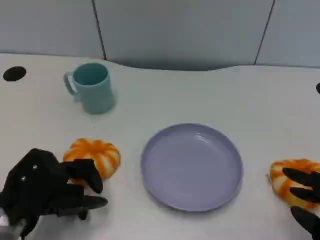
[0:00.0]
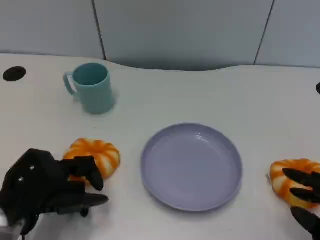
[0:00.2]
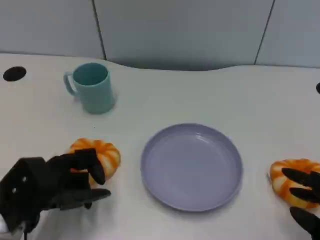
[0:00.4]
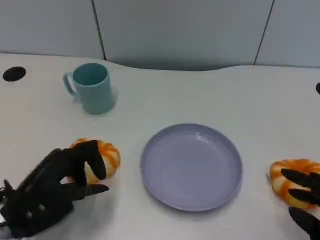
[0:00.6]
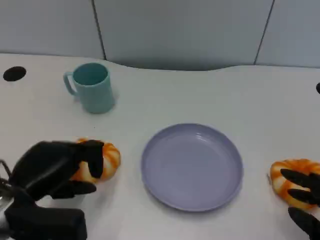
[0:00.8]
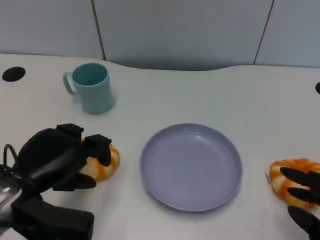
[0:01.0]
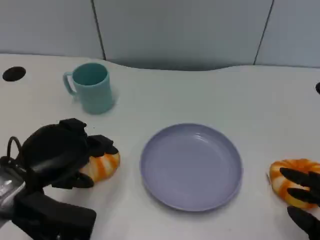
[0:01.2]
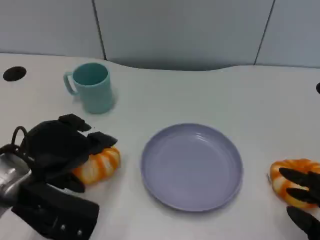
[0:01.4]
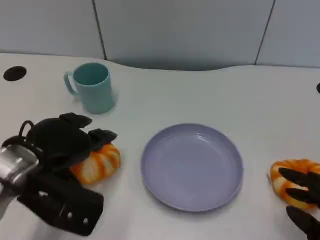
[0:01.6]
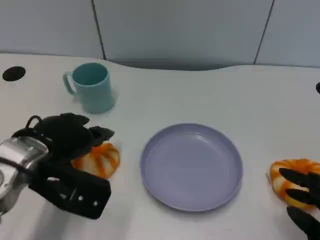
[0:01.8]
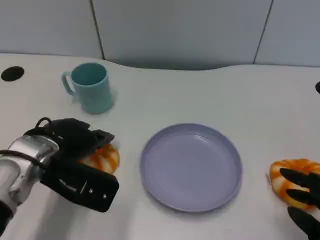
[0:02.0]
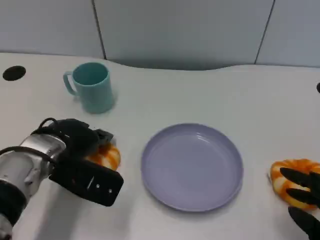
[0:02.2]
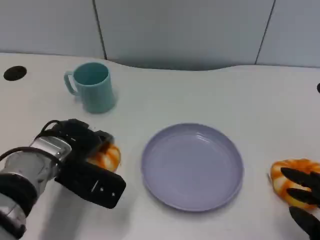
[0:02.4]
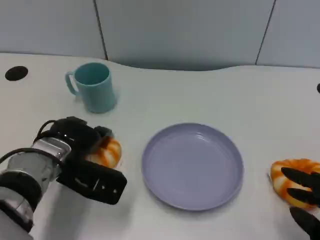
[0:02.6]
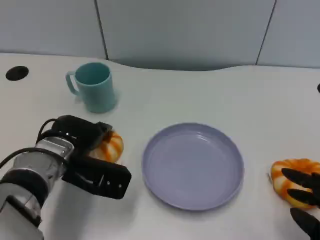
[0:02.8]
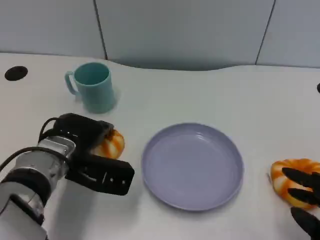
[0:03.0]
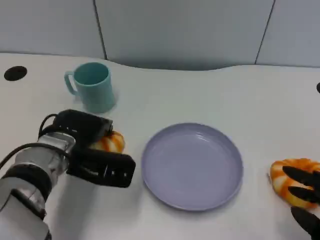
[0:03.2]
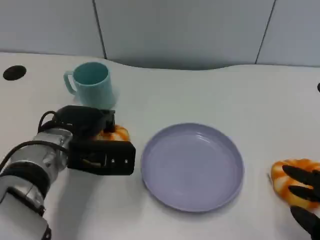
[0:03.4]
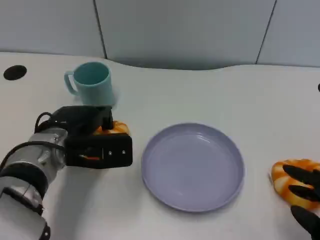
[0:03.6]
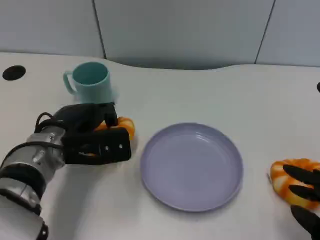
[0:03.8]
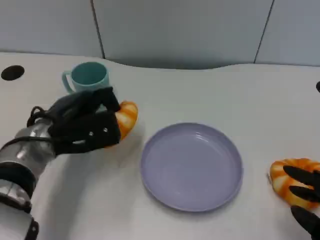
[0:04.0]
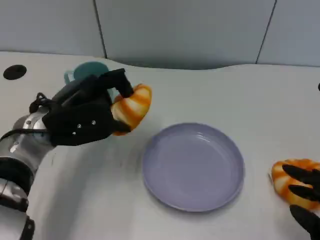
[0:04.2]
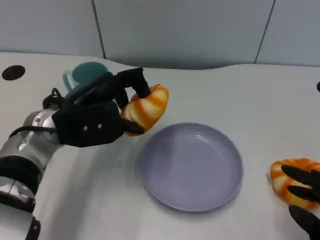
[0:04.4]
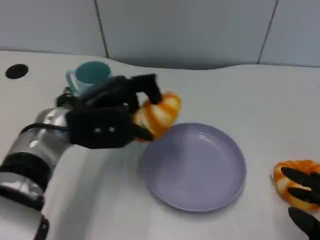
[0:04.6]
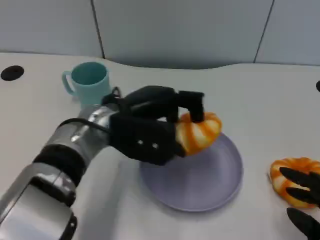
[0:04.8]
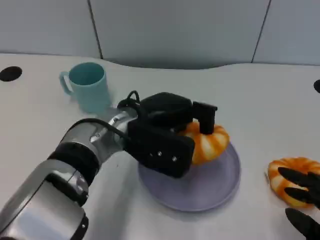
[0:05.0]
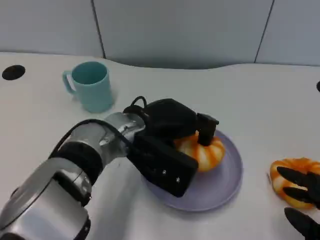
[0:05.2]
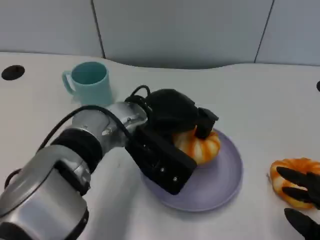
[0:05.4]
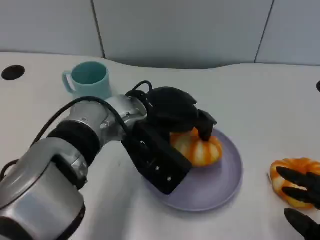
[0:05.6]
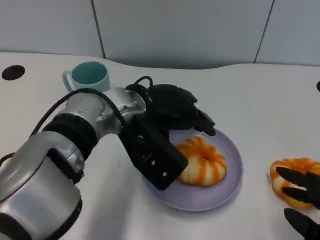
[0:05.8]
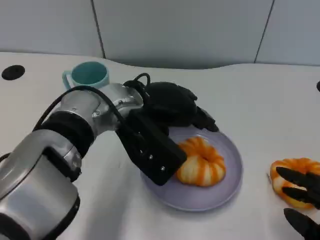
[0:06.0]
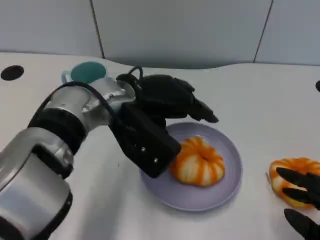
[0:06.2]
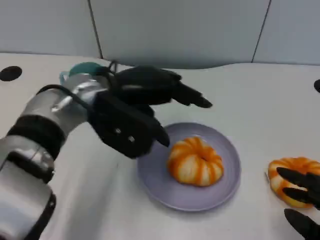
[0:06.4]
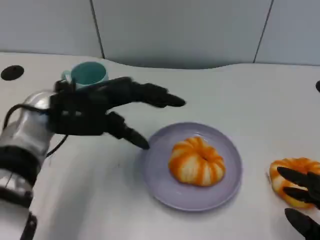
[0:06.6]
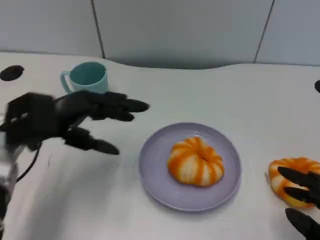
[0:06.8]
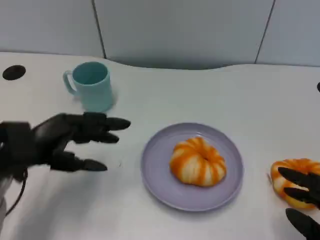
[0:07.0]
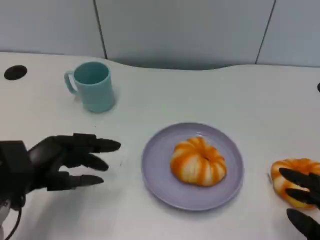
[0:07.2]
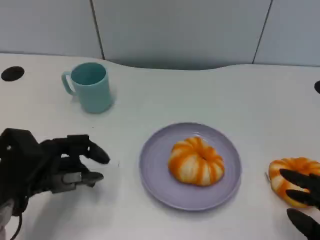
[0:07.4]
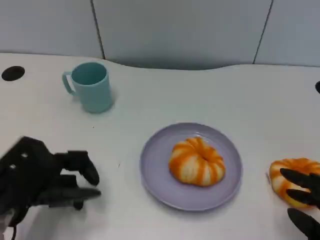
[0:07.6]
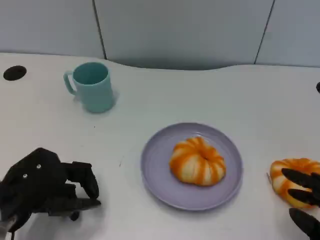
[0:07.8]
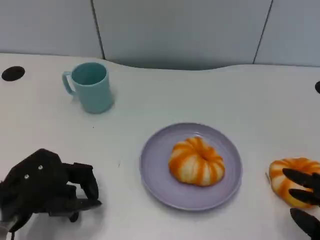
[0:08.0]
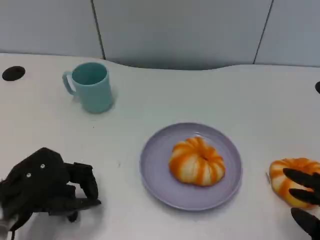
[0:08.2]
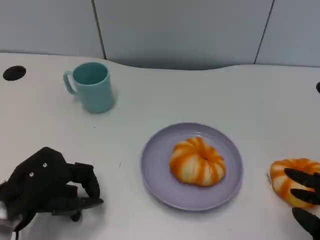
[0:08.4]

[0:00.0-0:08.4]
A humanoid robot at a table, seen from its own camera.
Task of the whole recording: Grasp the bread from the table and place it into the plate.
0:00.0 to 0:01.4: The left hand heads upward, covering about 5 cm.
0:01.4 to 0:02.8: The left hand is displaced forward and downward by about 10 cm.
0:02.8 to 0:04.2: The left hand shifts roughly 5 cm upward.
0:04.2 to 0:05.6: The left hand is displaced to the right by about 10 cm.
0:05.6 to 0:07.0: The left hand travels to the left by some 20 cm.

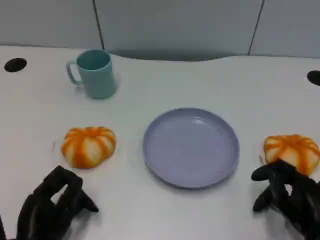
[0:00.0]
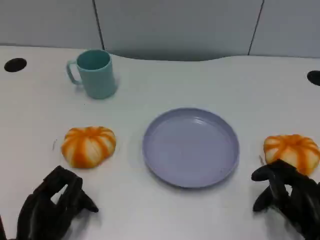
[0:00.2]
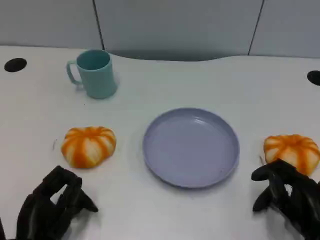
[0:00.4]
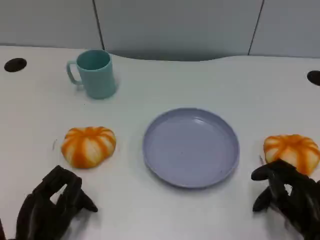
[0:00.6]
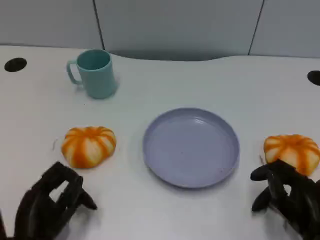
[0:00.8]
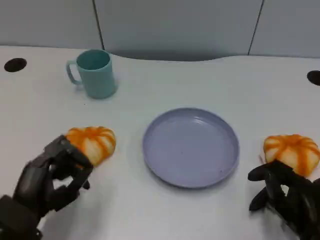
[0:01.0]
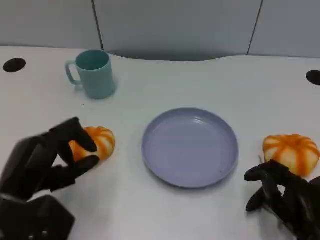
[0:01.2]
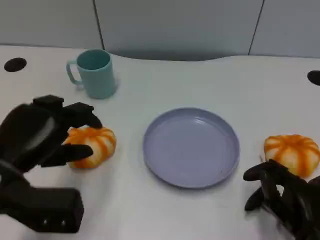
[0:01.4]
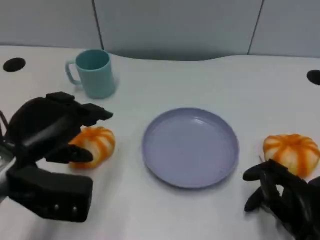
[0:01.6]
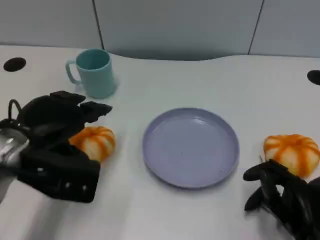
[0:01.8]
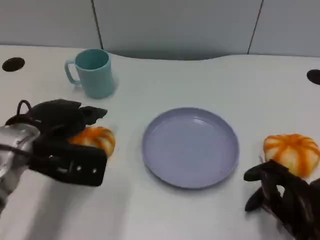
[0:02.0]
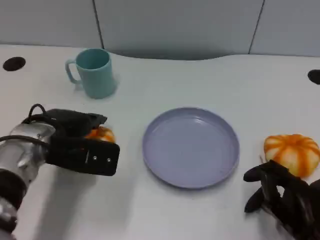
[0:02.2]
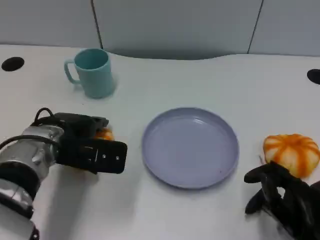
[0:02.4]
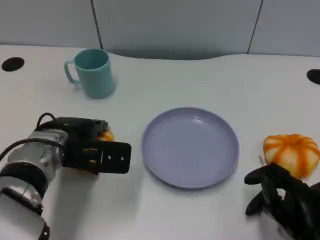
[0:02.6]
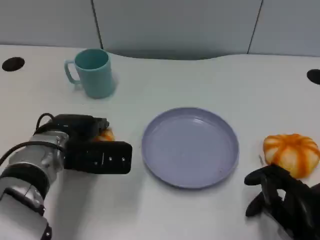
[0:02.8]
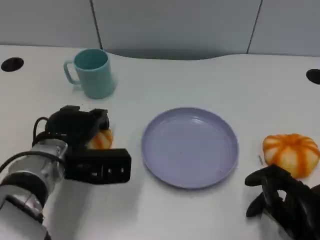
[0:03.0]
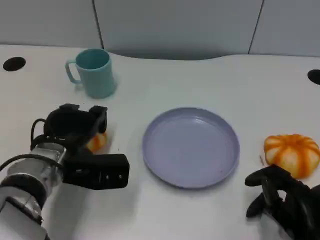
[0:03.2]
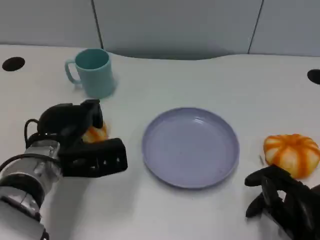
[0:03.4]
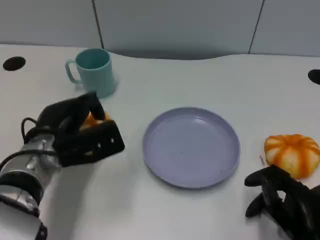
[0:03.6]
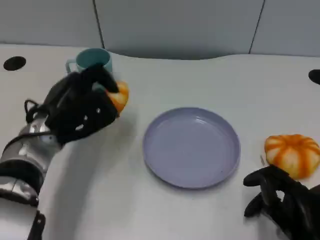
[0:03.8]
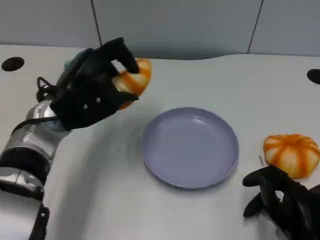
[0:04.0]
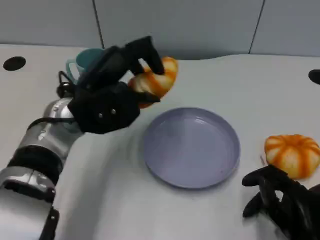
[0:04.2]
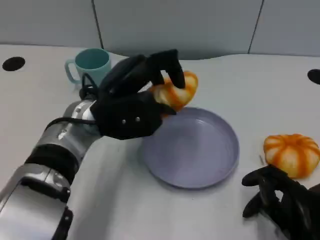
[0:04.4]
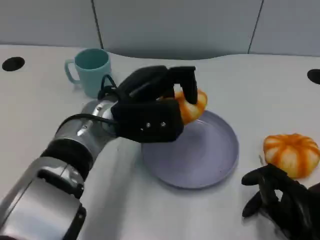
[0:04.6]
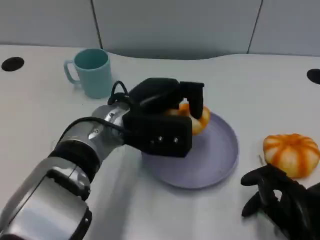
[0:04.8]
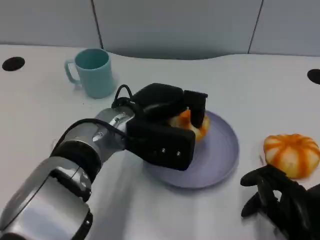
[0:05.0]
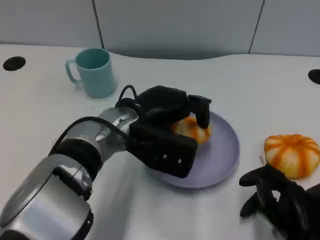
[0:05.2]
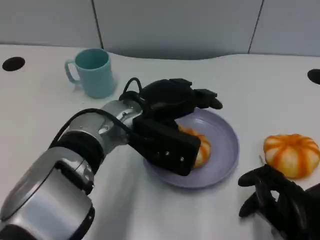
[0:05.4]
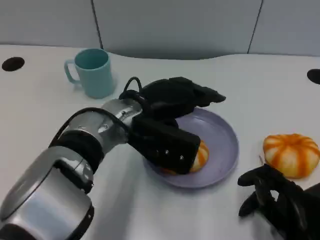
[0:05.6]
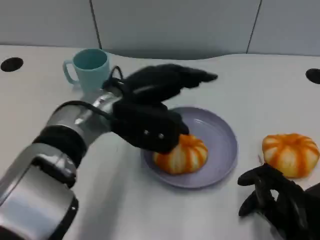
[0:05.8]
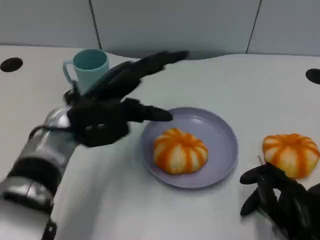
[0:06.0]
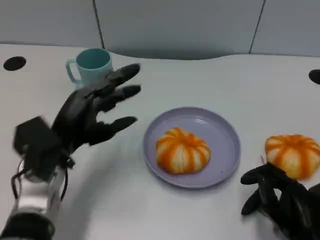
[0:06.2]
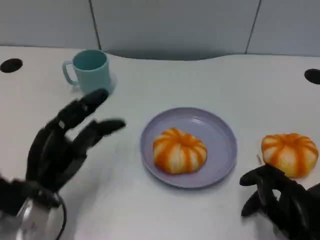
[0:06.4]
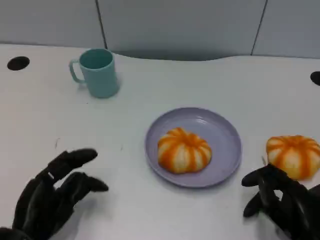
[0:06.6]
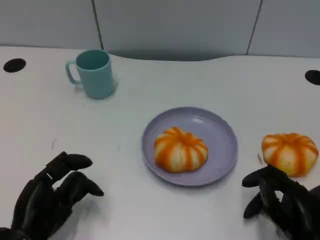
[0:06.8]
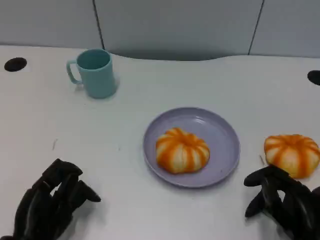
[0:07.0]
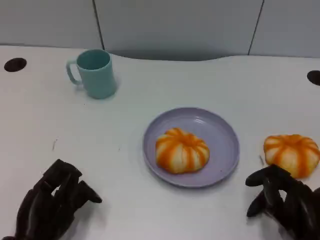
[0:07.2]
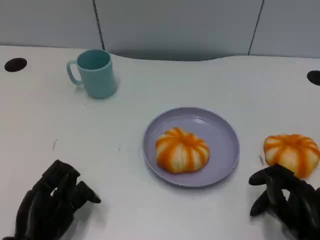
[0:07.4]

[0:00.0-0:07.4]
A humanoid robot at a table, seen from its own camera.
Task of the whole recording: Grasp the bread from the table and place it into the plate.
0:00.0 to 0:01.4: The left hand travels upward and forward by about 15 cm.
0:01.4 to 0:03.0: The left hand moves forward, downward and to the right, roughly 10 cm.
0:03.0 to 0:04.4: The left hand goes approximately 10 cm upward and to the right.
0:04.4 to 0:06.0: The left hand is displaced to the left by some 5 cm.
0:06.0 to 0:07.4: The left hand is displaced backward, downward and to the left by some 20 cm.

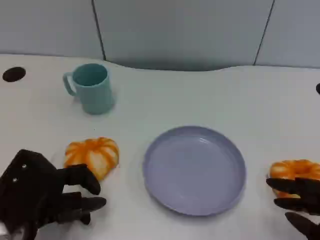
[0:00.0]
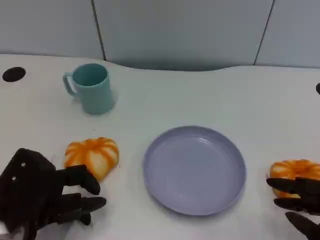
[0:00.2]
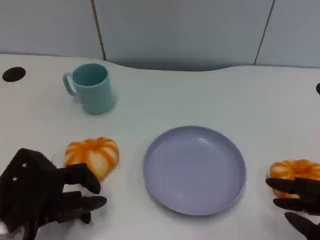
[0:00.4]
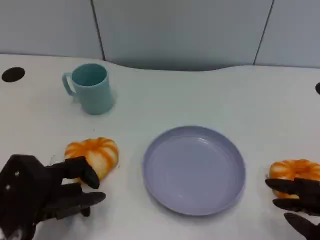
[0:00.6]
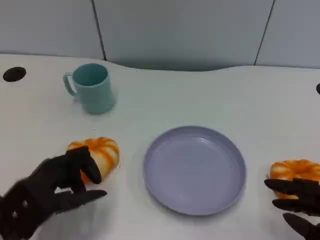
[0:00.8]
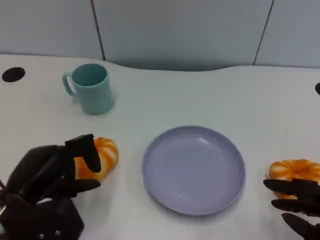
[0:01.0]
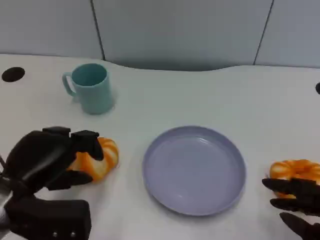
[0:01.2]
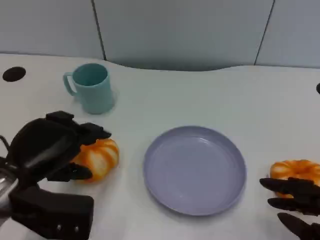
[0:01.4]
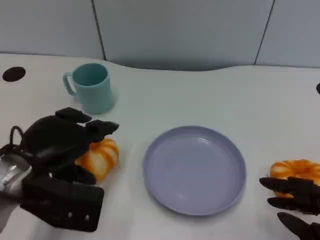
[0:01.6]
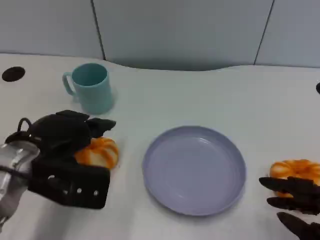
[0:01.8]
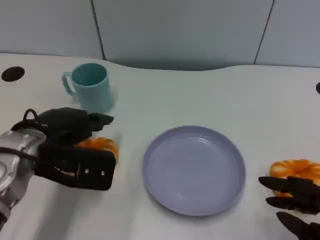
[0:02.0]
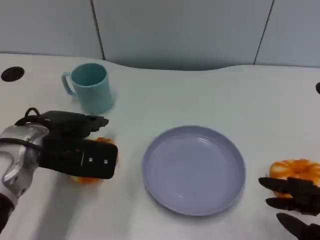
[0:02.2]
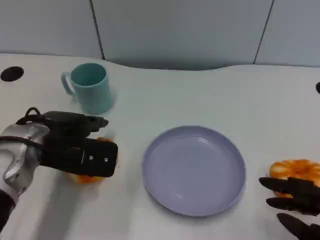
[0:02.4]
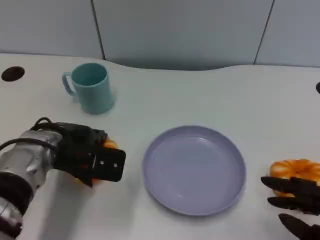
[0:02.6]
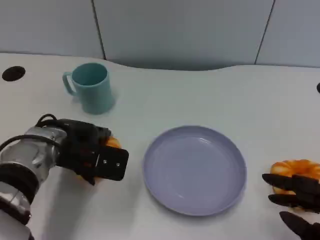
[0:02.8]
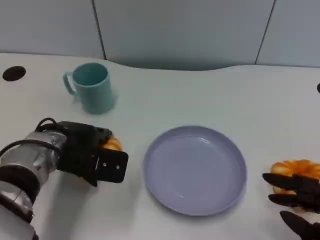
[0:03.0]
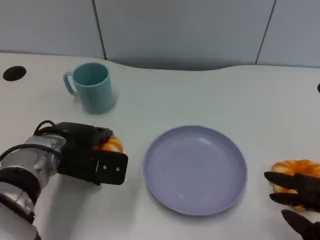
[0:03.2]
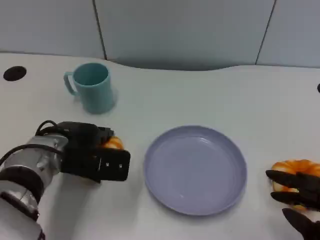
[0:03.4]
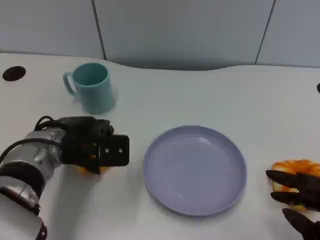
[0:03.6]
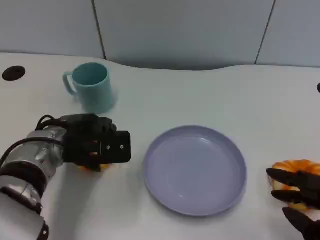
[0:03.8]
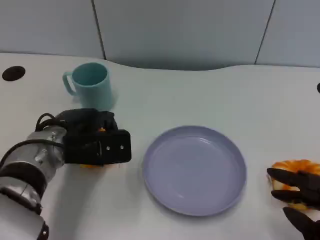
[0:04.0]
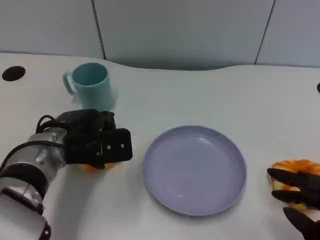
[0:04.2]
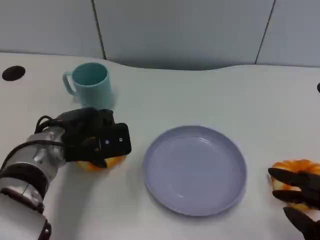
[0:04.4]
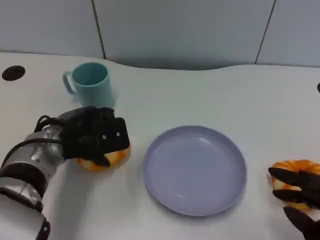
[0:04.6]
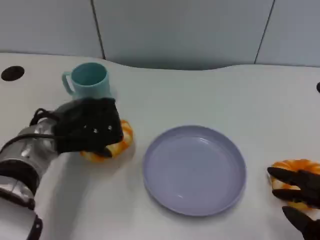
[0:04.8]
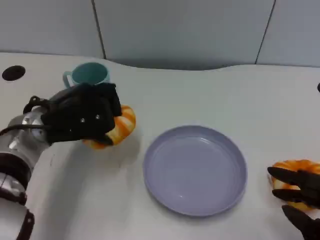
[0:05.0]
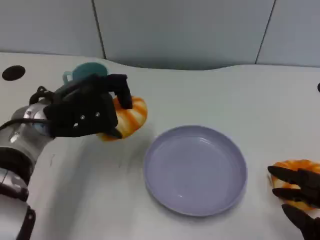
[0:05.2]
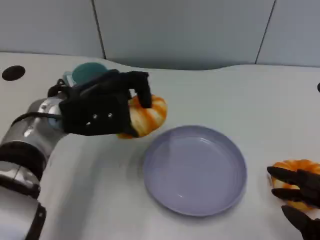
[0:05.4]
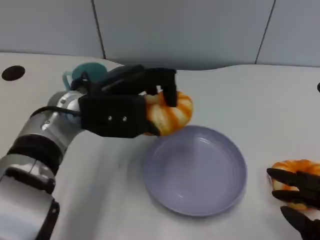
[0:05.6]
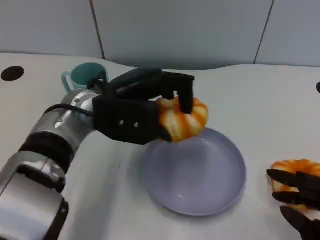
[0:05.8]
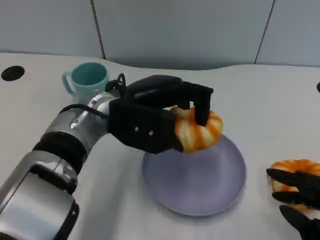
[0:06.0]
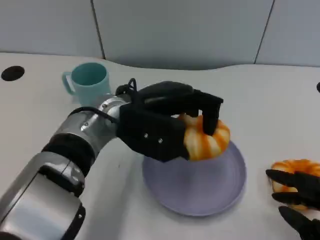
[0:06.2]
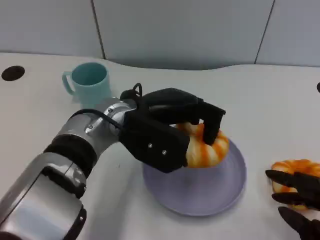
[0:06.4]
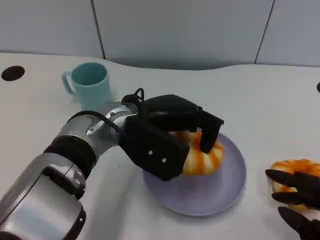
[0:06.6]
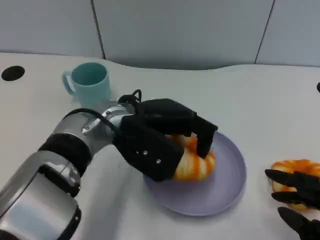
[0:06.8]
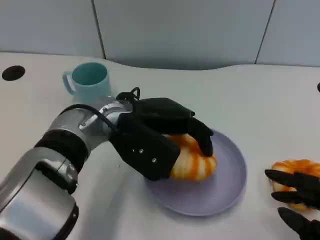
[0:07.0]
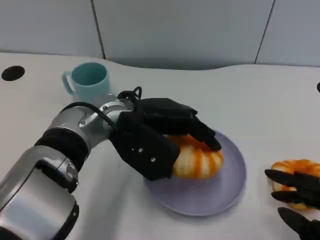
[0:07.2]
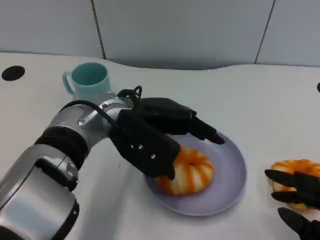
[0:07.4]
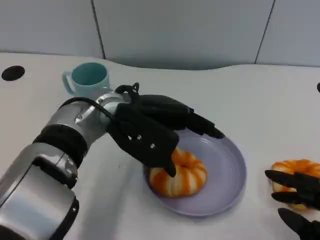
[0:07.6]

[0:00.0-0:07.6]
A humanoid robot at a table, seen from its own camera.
Task of the whole recording: Grasp the bread from the table and place it into the plate.
0:00.0 to 0:01.6: The left hand shifts some 5 cm upward.
0:01.6 to 0:03.0: The left hand goes roughly 5 cm forward.
0:04.6 to 0:06.0: The left hand moves to the right and upward, approximately 10 cm.
